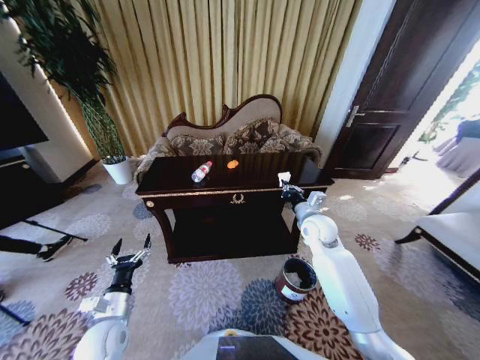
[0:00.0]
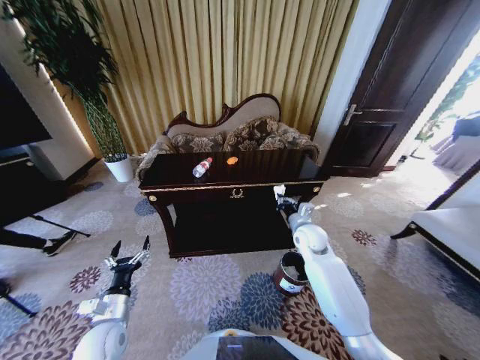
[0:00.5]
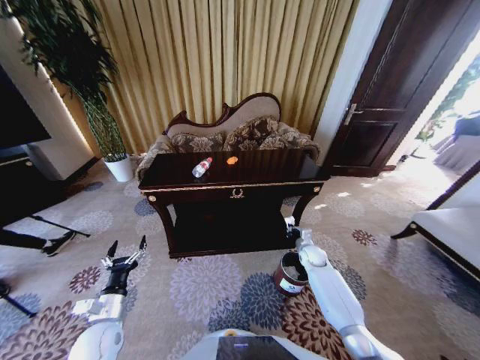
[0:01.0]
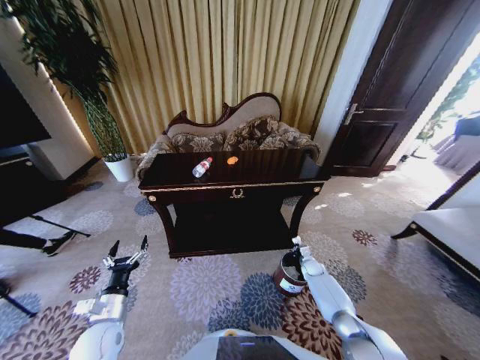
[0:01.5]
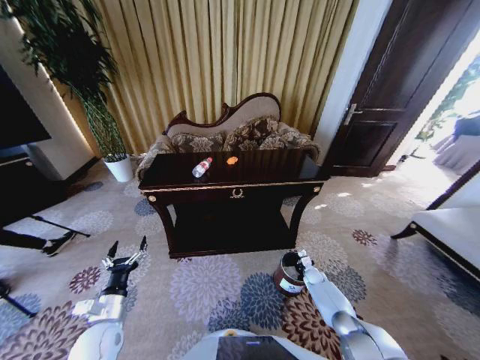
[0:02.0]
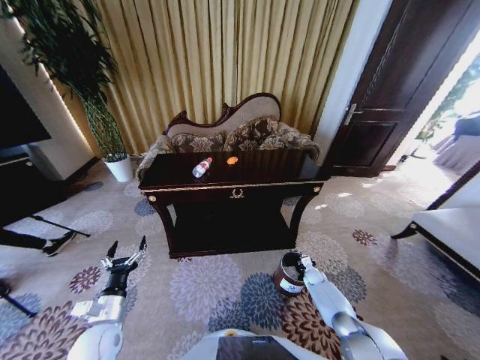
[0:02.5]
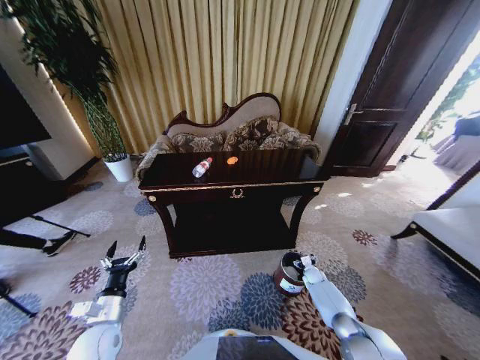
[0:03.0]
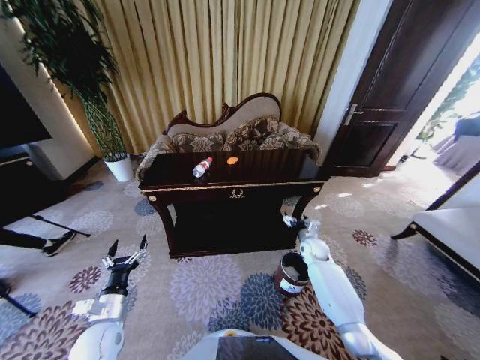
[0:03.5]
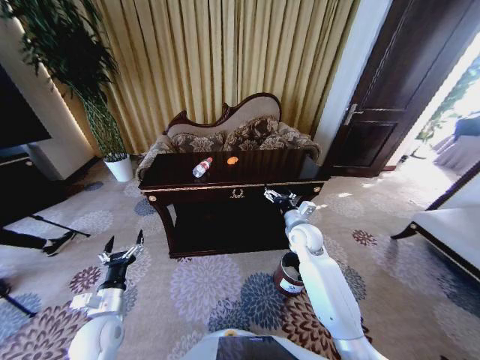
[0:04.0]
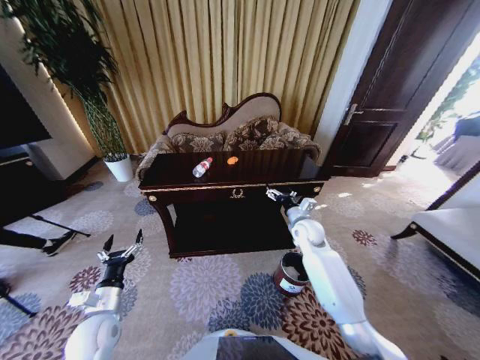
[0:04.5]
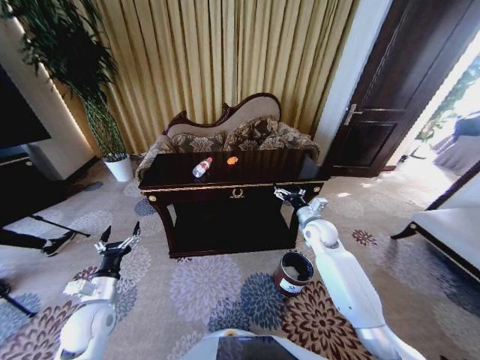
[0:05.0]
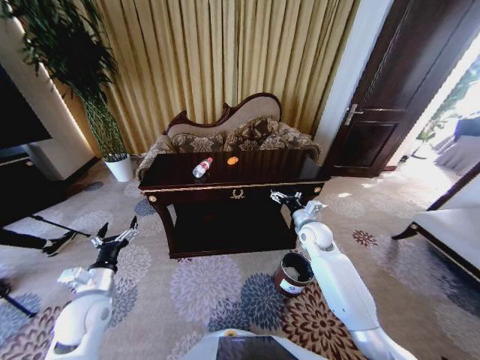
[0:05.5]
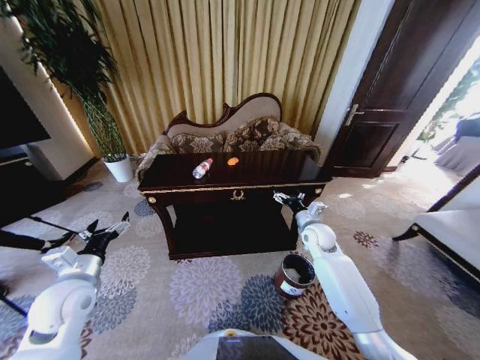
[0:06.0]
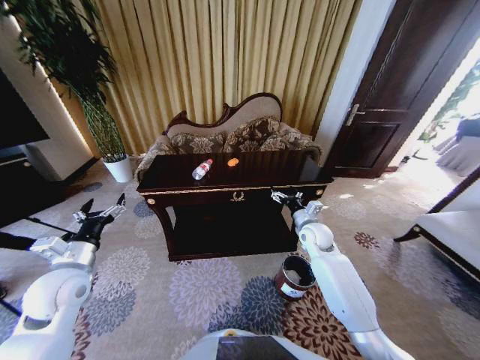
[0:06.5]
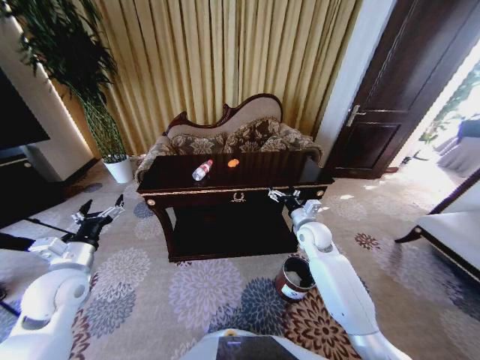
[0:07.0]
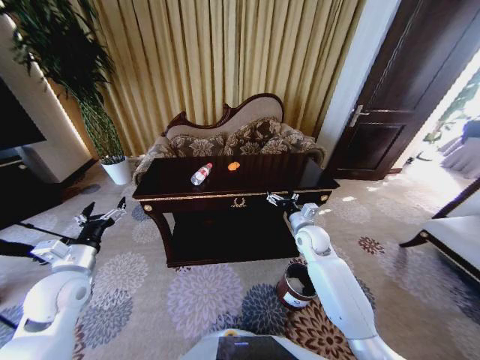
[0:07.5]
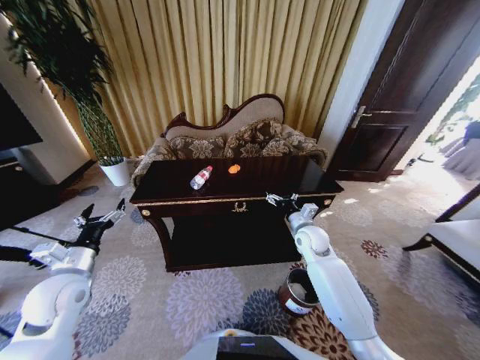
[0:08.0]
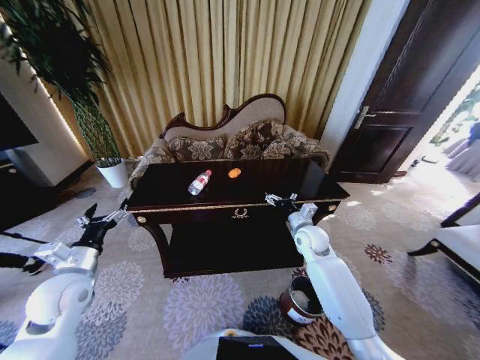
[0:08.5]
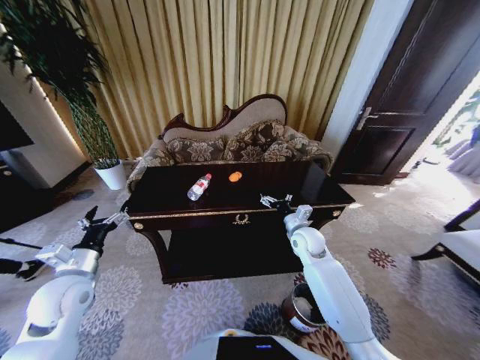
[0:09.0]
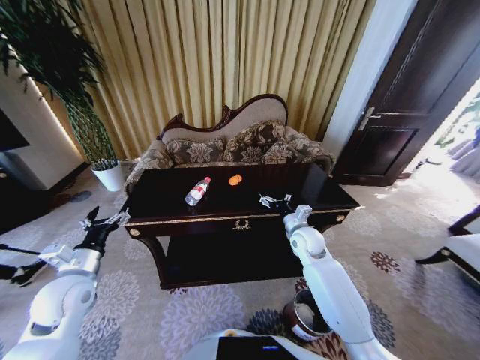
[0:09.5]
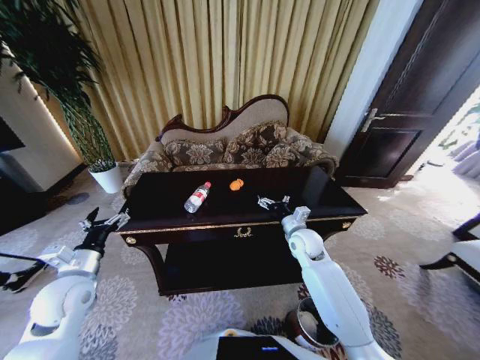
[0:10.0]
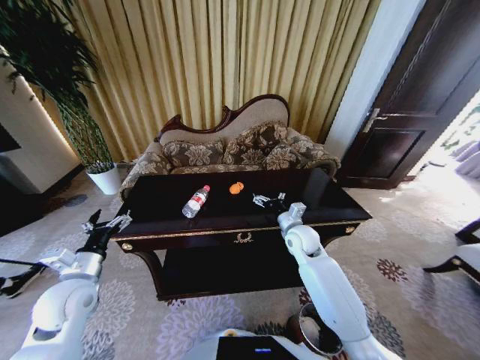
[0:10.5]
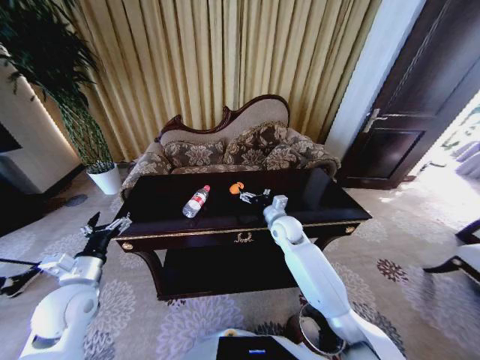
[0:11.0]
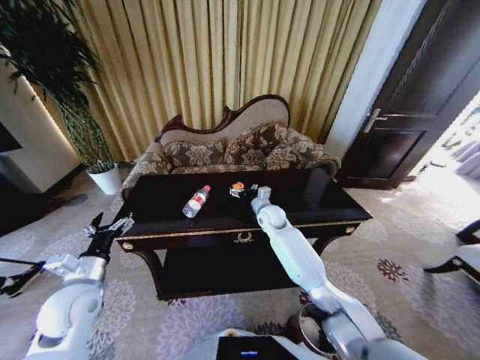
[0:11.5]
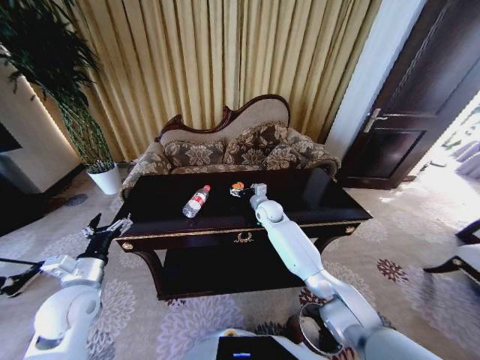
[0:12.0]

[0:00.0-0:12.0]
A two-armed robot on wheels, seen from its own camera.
Task of the whole recording: Move to the front of the table and place the trash on the table into the trash bin.
0:00.0 to 0:02.0: The right gripper is displaced downward by some 35 cm.
0:02.0 to 0:04.0: The right gripper goes approximately 35 cm upward and to the left, and opens up.
0:04.0 to 0:06.0: The right gripper shifts about 5 cm to the right; the left gripper is displaced upward by some 10 cm.
0:10.0 to 0:12.0: The right gripper travels forward and to the left by about 15 cm.

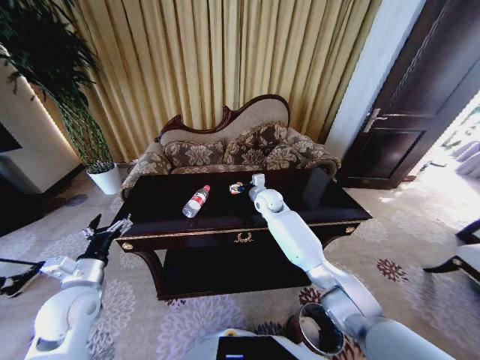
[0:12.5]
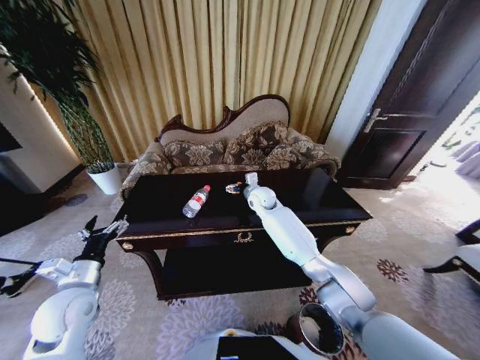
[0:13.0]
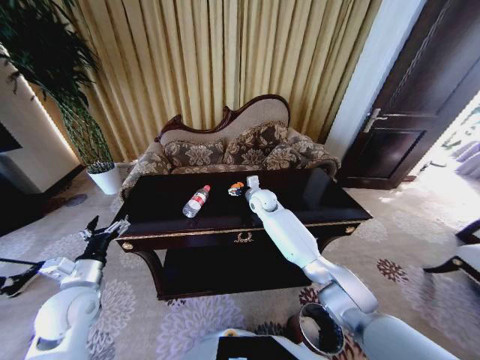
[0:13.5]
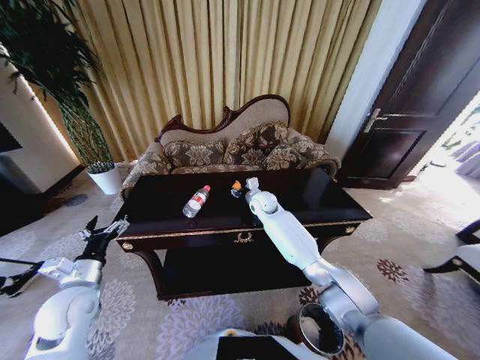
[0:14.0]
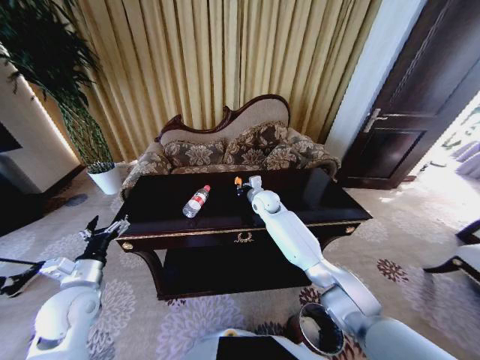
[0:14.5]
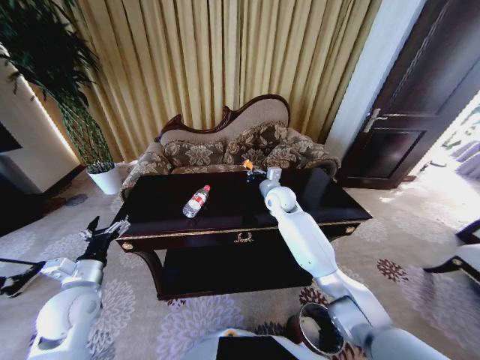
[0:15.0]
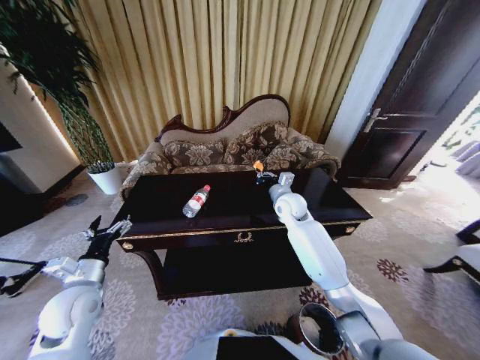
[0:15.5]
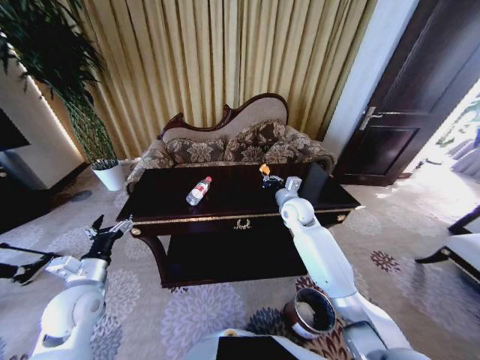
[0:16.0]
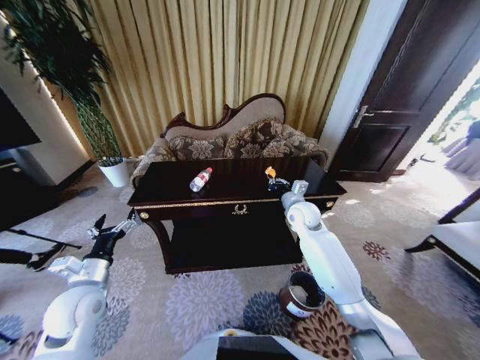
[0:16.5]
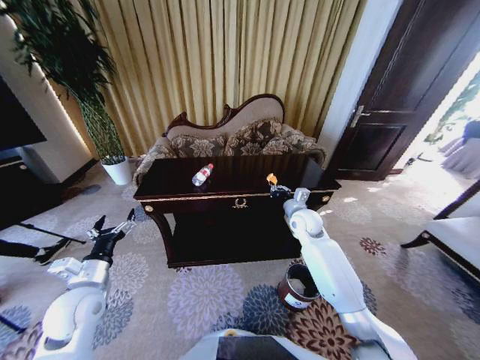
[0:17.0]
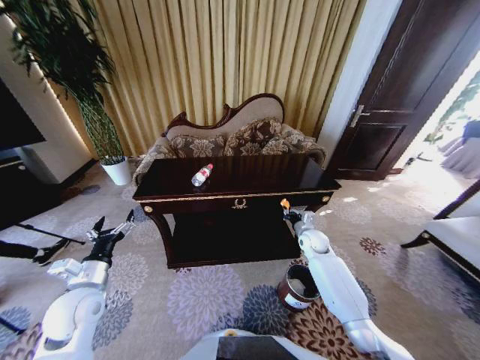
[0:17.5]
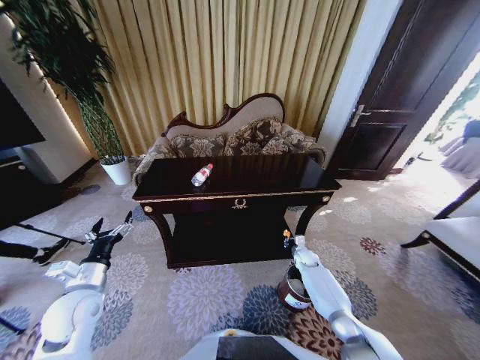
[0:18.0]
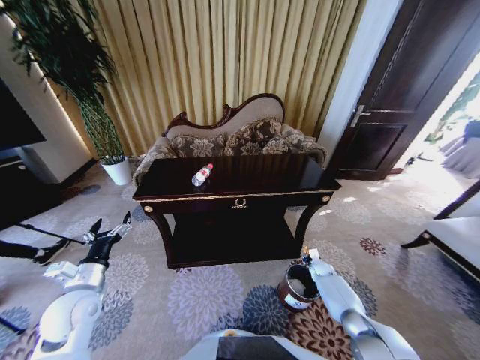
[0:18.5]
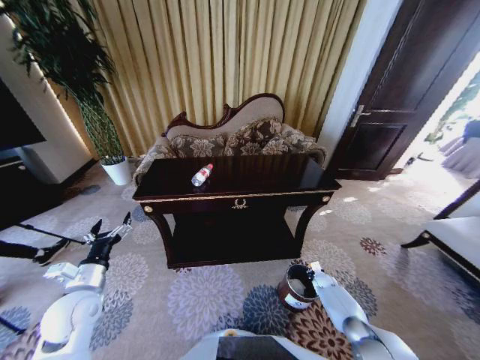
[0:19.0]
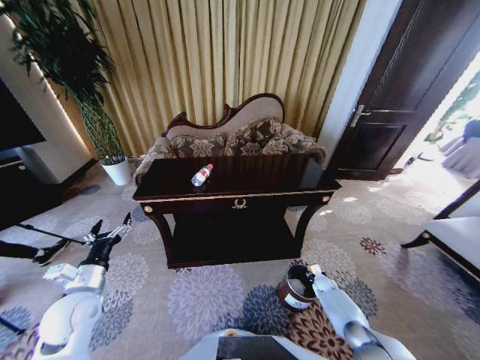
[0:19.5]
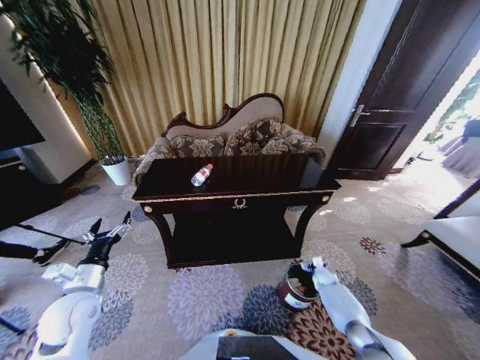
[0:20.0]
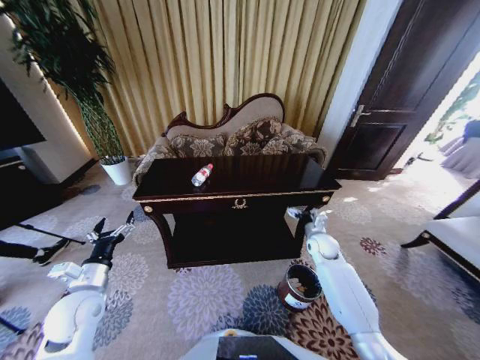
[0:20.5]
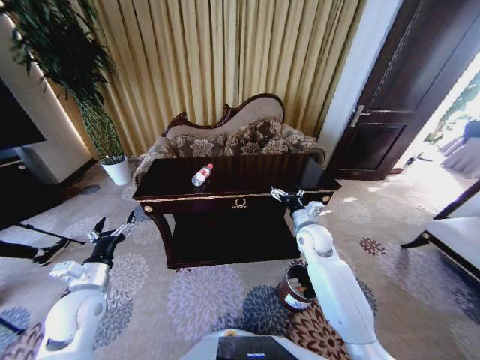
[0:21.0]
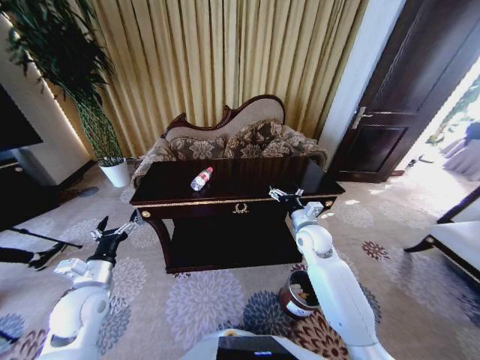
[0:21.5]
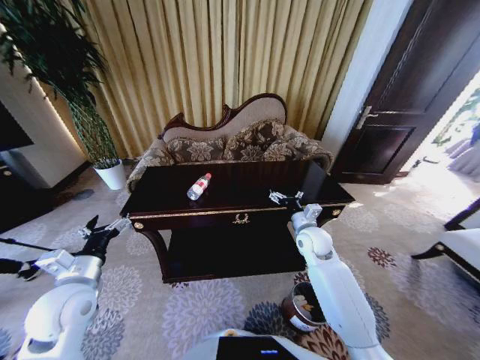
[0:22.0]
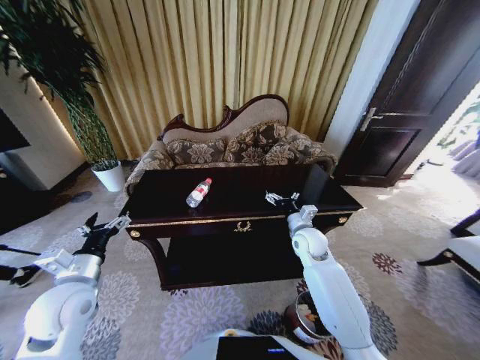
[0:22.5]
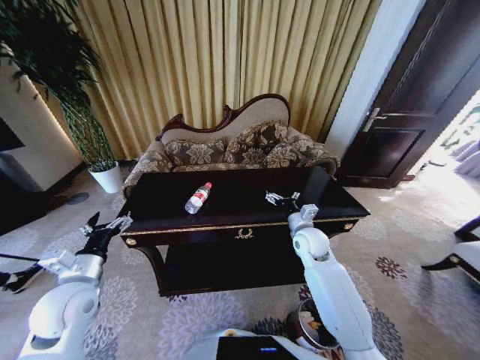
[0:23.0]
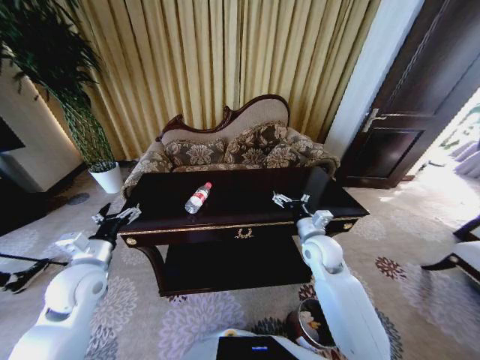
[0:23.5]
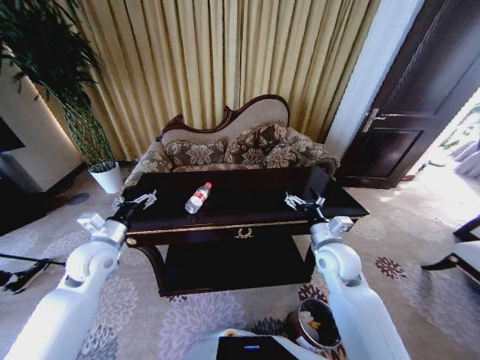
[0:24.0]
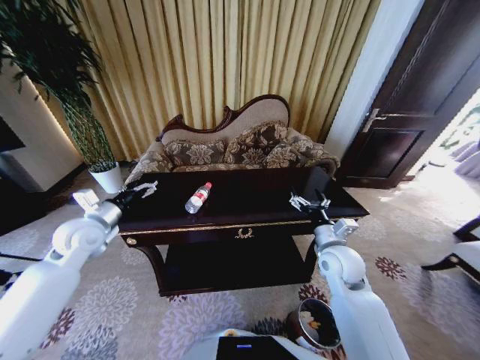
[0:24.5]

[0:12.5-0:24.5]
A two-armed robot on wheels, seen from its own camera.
Task of the whole recording: Move to the front of the table and place the trash on the table into the trash bin.
0:12.5 to 0:14.5: The right gripper closes its fingers.
0:14.5 to 0:16.5: The right gripper shifts roughly 15 cm to the right and backward.
0:16.5 to 0:18.5: The right gripper goes approximately 35 cm downward and to the right.
0:18.5 to 0:20.5: The right gripper is displaced upward by roughly 20 cm, and opens up.
0:20.5 to 0:22.5: The left gripper is displaced upward by some 5 cm. The right gripper travels to the left and upward by about 10 cm.
0:22.5 to 0:24.5: The left gripper moves forward, approximately 15 cm, while the right gripper heads backward, covering roughly 10 cm.

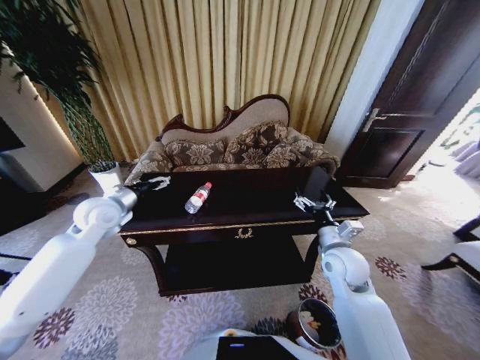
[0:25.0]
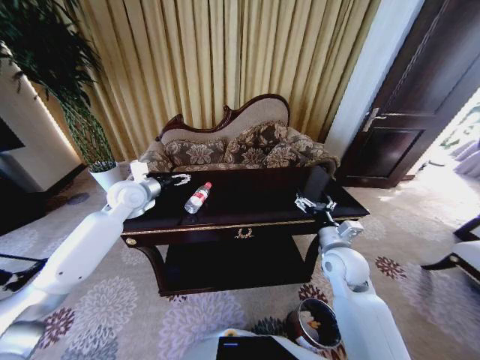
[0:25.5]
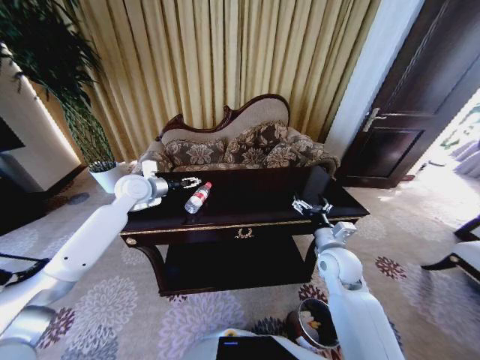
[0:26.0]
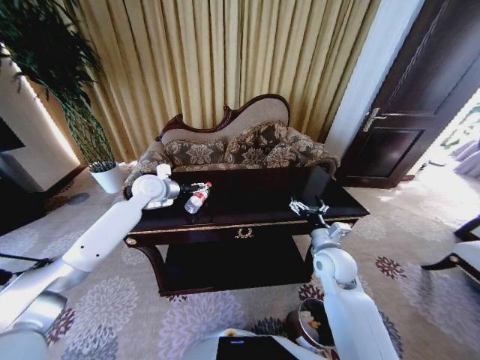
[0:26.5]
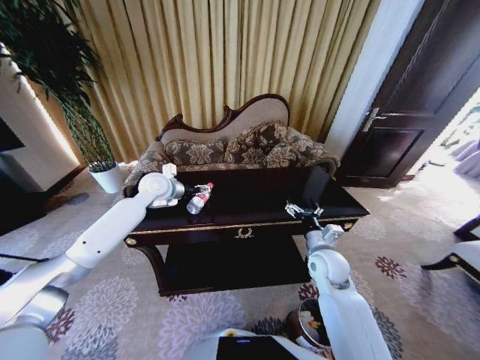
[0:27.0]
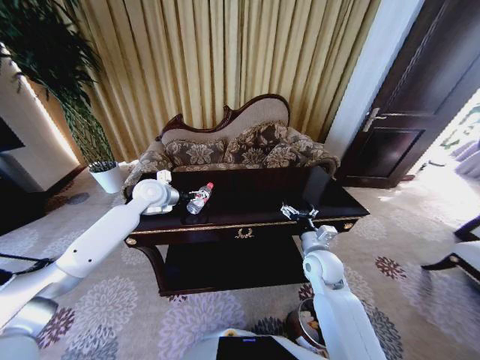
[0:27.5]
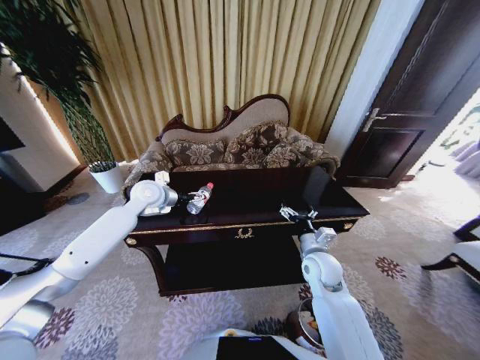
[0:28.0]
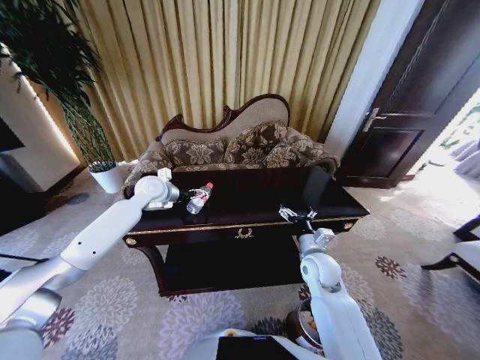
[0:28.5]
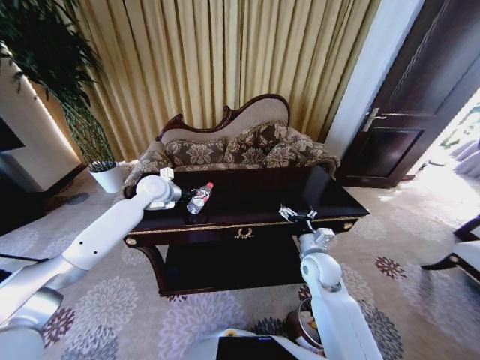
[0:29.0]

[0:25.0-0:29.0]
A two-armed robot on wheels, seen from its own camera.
Task of the whole recording: Move to the front of the table and place the trash on the table into the trash bin.
0:25.0 to 0:27.0: The left gripper is displaced to the right and forward by about 15 cm.
0:27.0 to 0:29.0: The grippers make only small movements.
